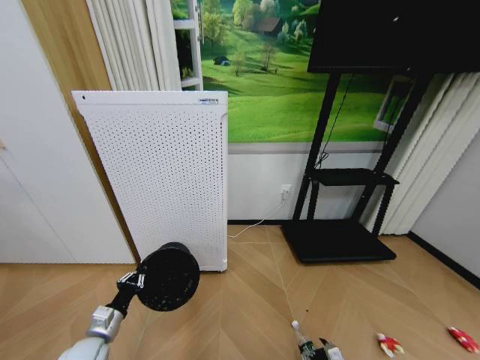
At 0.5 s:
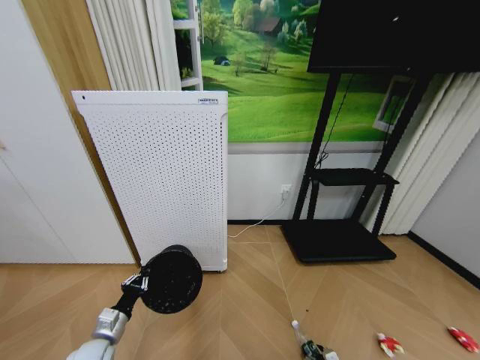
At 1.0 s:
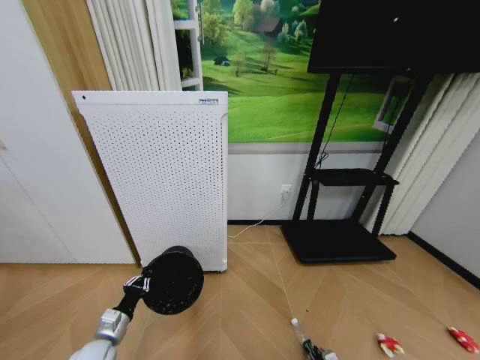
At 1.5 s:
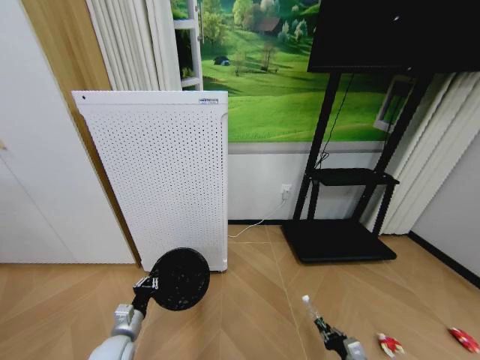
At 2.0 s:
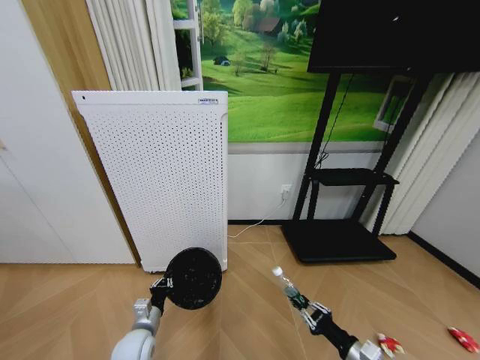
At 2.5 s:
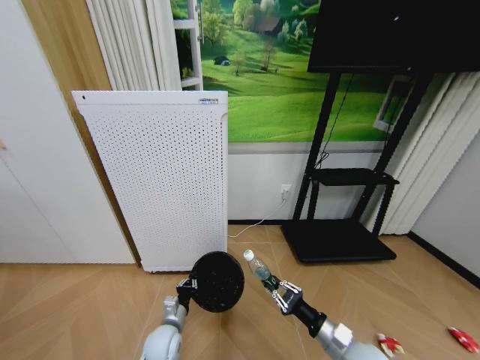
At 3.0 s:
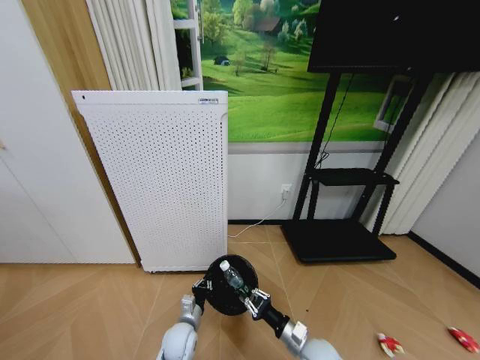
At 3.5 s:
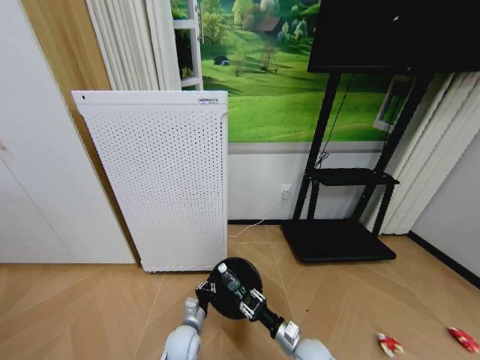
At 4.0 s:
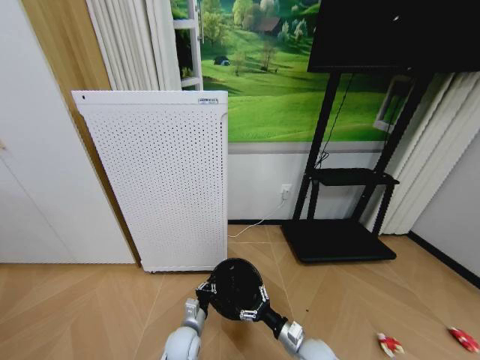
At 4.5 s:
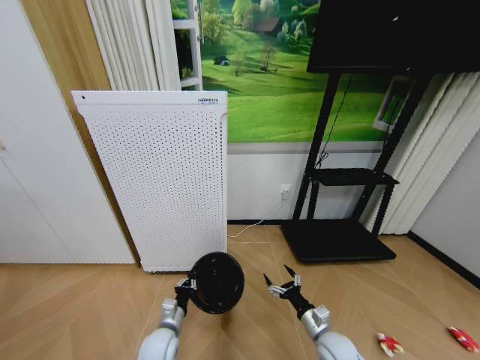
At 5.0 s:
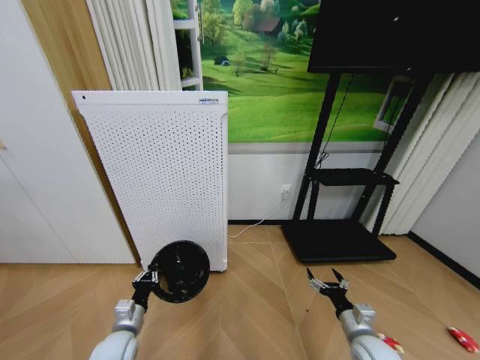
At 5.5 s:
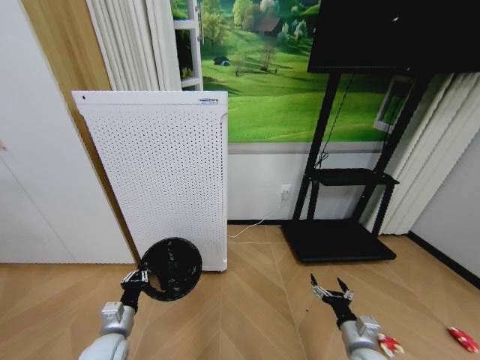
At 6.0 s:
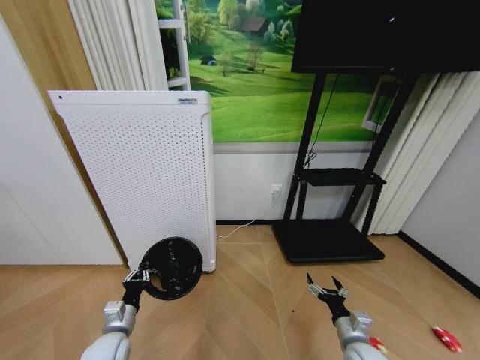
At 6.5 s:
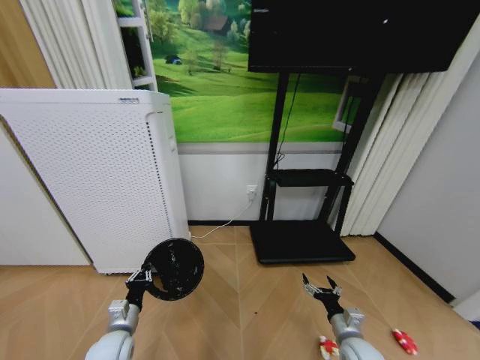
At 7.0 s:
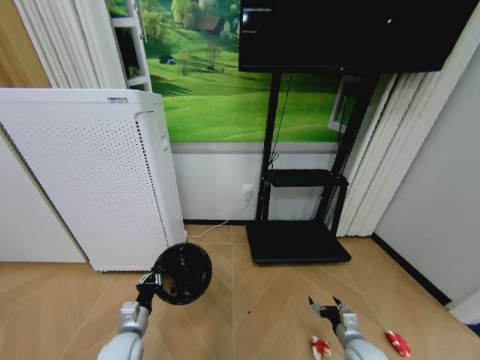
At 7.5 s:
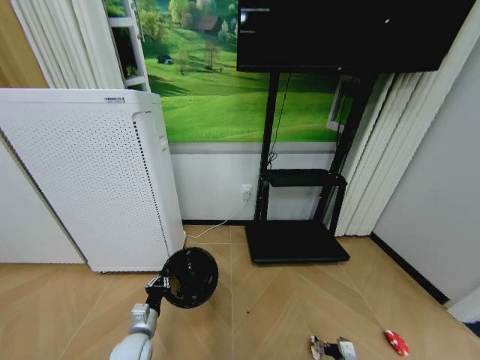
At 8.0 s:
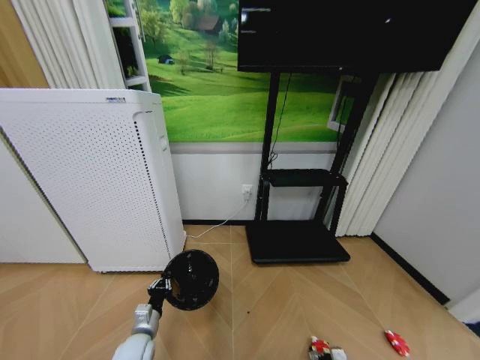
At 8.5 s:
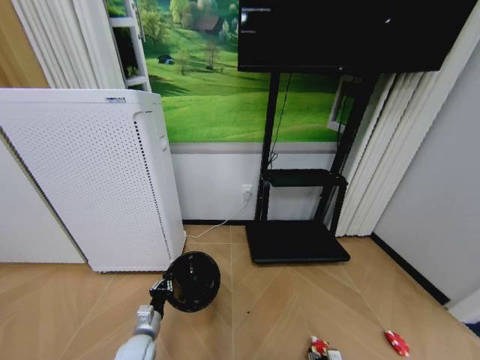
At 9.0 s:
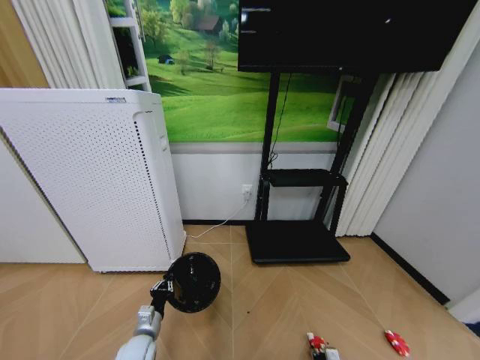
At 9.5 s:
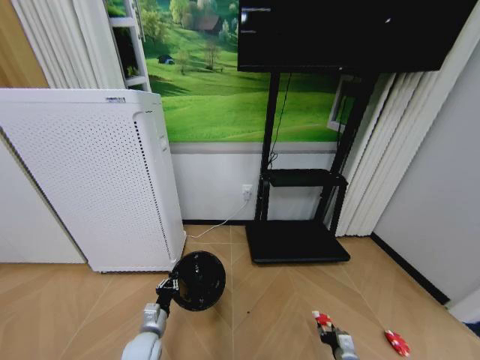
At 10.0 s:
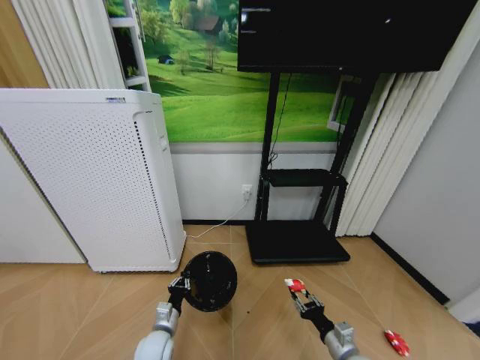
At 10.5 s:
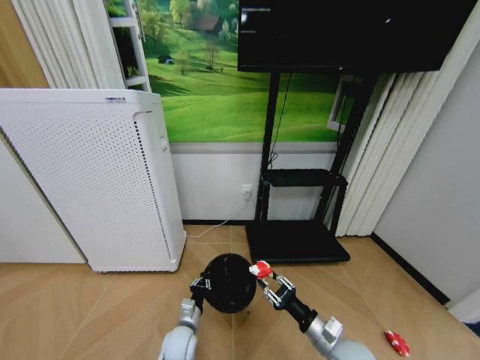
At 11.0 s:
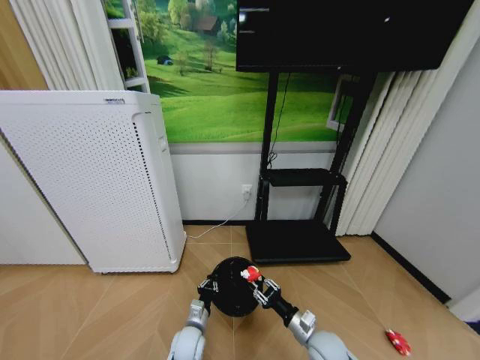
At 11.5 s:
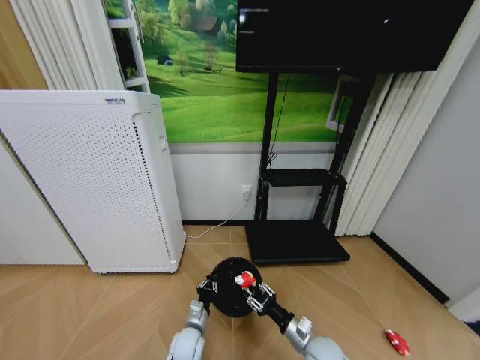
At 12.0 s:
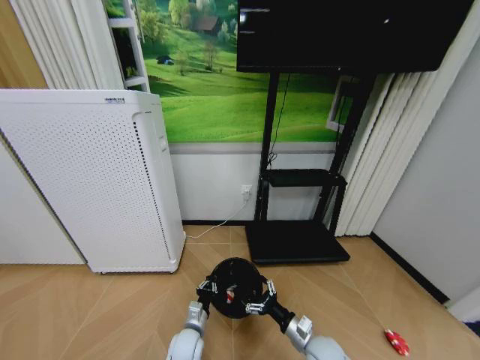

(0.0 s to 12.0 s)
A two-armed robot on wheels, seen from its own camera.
Task of the whole recording: Pick up the trash bin and place the garbage on the floor into it.
0.0 s - 2.0 s: The right gripper goes about 20 cm upward, and closes its fingers. The left gripper travels to the right by roughly 10 cm.
2.0 s - 4.0 s: The left gripper goes about 10 cm to the right. Meanwhile the right gripper travels to the left, downward and forward by roughly 15 cm, and opens up.
4.0 s - 6.0 s: The left gripper shifts some 20 cm to the left and upward. The right gripper moves to the right, roughly 10 cm.
6.0 s - 8.0 s: The left gripper goes about 5 cm downward. The right gripper moves downward, roughly 15 cm.
8.0 s - 10.0 s: The left gripper is displaced to the right by about 5 cm, while the right gripper shifts some 15 cm upward, and closes up.
10.0 s - 12.0 s: The right gripper goes about 10 cm to the left, and opens. Meanwhile the left gripper travels to the right by roughly 10 cm.

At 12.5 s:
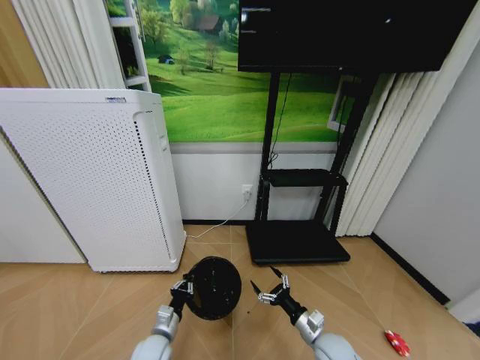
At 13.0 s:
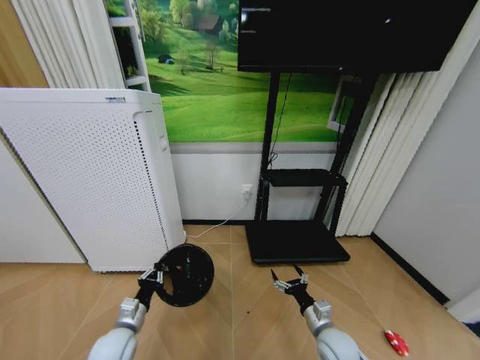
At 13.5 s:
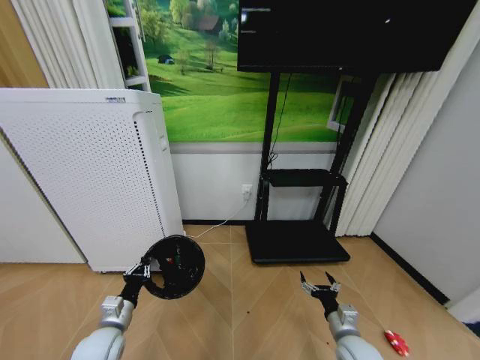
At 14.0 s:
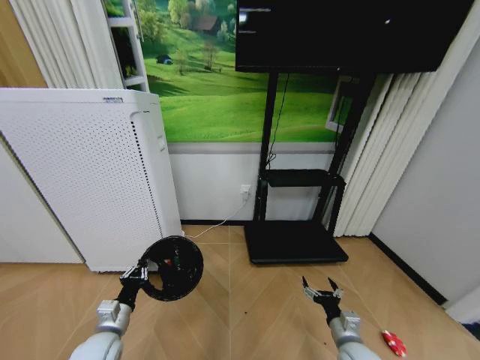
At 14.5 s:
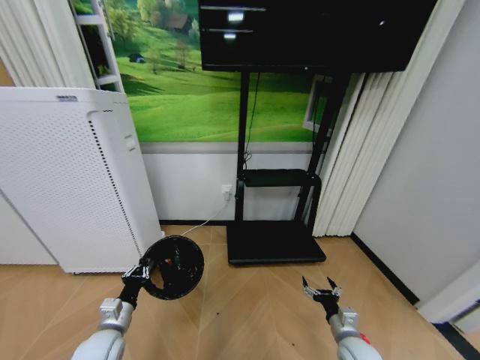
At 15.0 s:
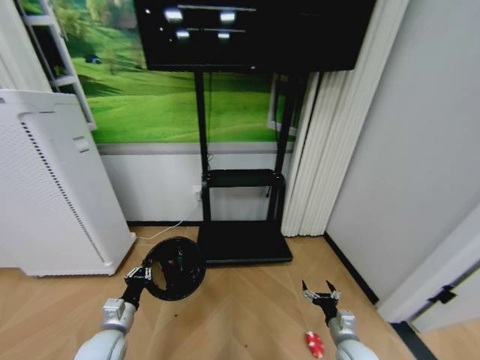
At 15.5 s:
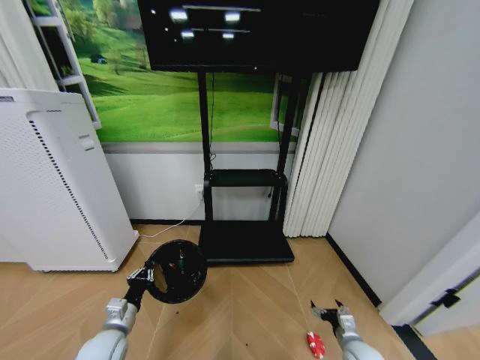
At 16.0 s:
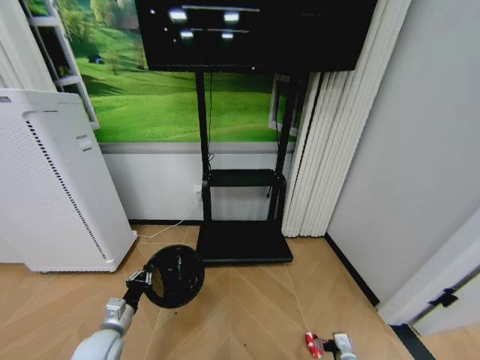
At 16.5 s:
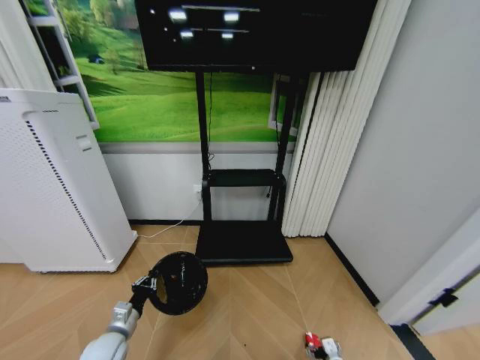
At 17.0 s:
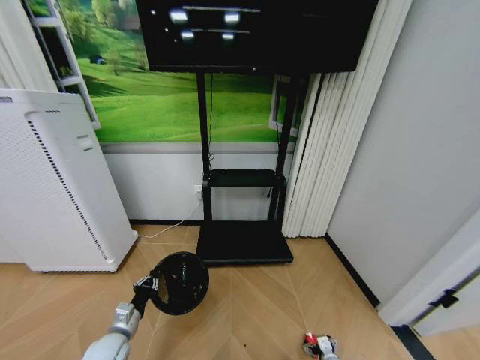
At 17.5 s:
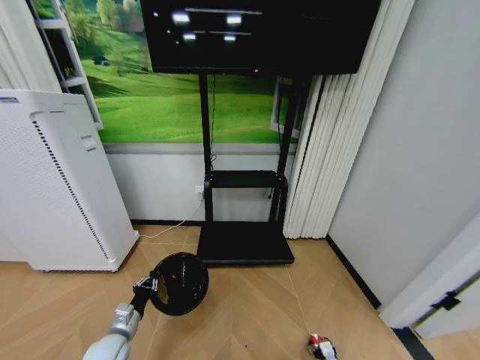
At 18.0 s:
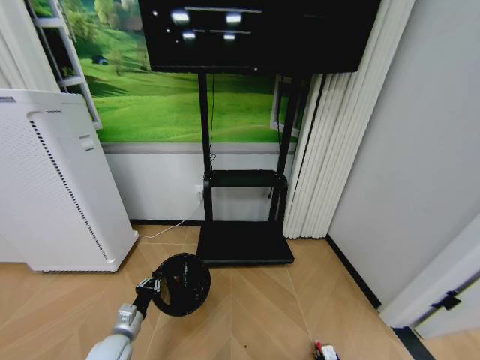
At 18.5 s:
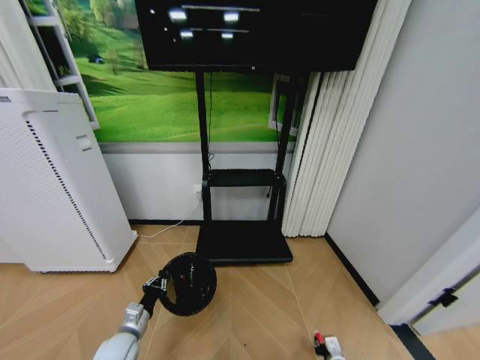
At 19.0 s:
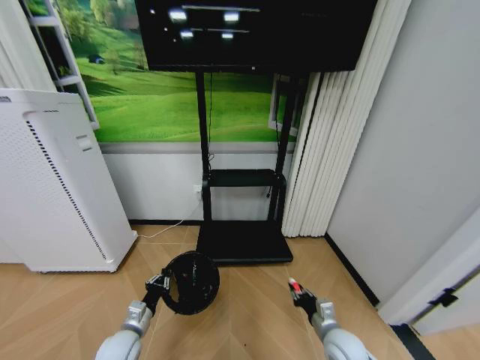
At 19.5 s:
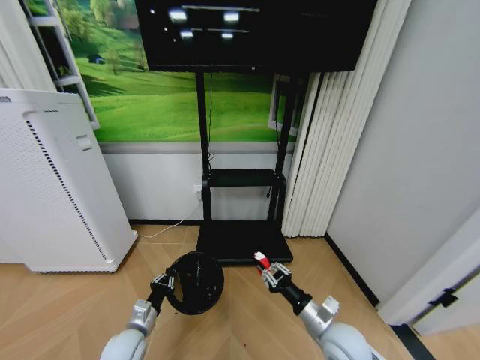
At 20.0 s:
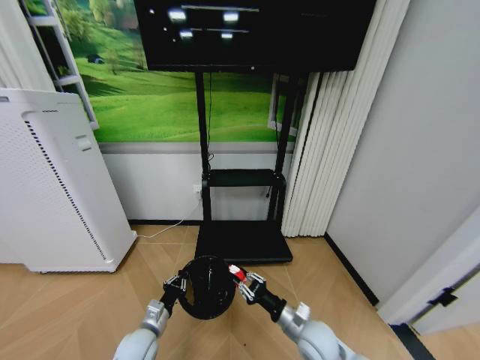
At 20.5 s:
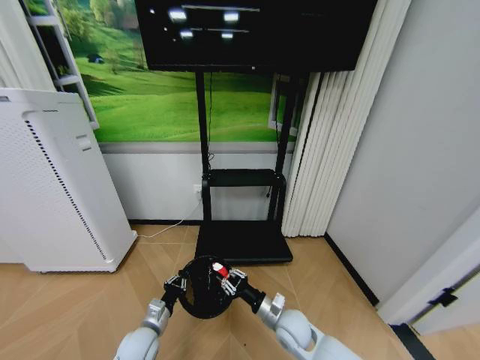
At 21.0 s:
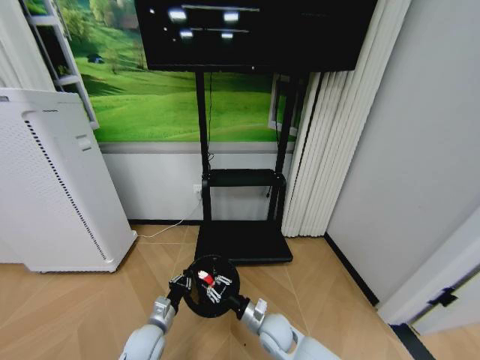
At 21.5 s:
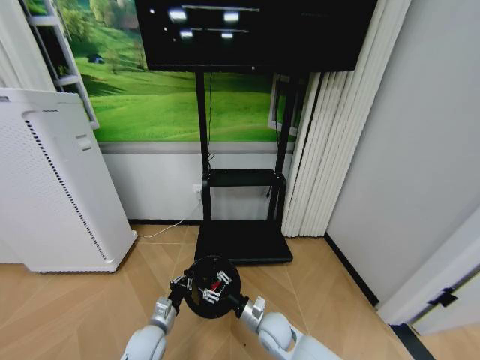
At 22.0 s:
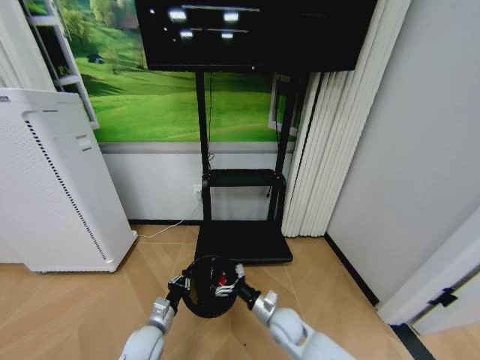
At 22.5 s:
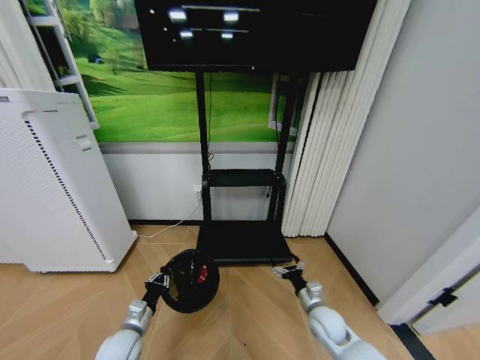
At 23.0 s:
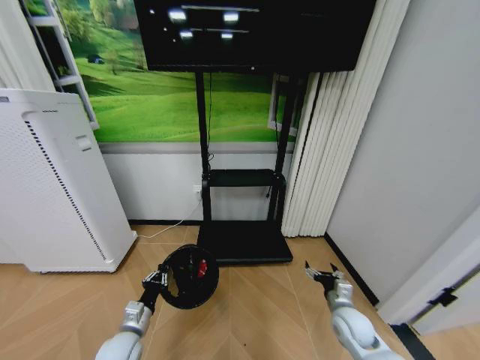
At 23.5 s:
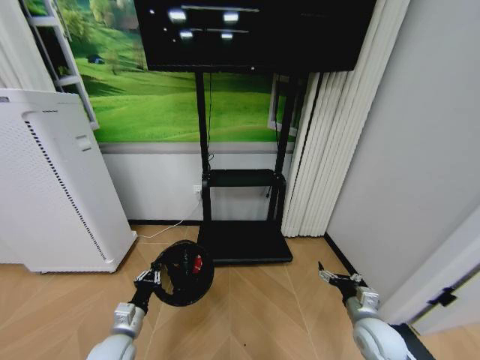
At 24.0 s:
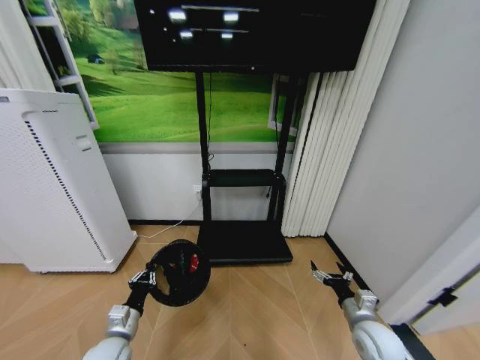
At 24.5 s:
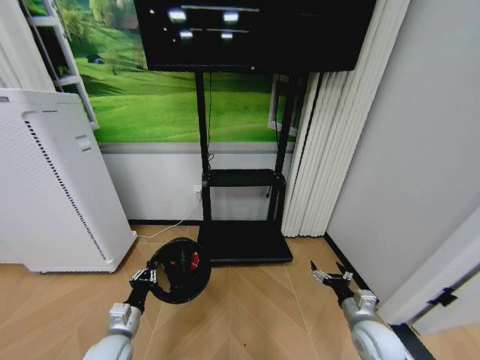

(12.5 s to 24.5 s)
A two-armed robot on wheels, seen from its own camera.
Task of the whole recording: Pick up the trash bin and place the garbage on the floor into it.
12.5 s - 14.5 s: The left gripper moves to the left and upward, approximately 15 cm. Meanwhile the right gripper heads to the right, covering about 5 cm.
14.5 s - 16.5 s: The right gripper shifts some 15 cm downward.
16.5 s - 18.5 s: The right gripper closes.
18.5 s - 20.5 s: The right gripper is displaced to the left, upward and forward by roughly 25 cm. Meanwhile the left gripper heads to the right, covering about 5 cm.
20.5 s - 22.5 s: The right gripper travels to the right by roughly 10 cm, and opens its fingers.
22.5 s - 24.5 s: The right gripper heads to the right, backward and upward, covering some 10 cm.

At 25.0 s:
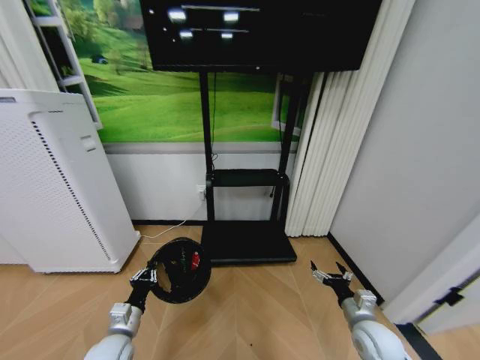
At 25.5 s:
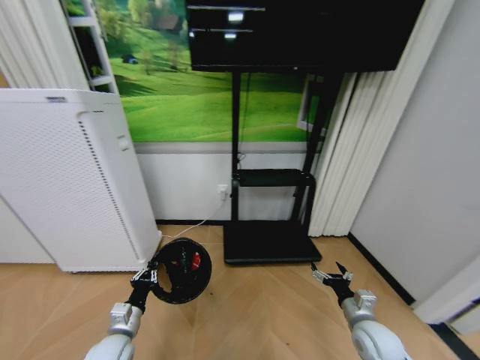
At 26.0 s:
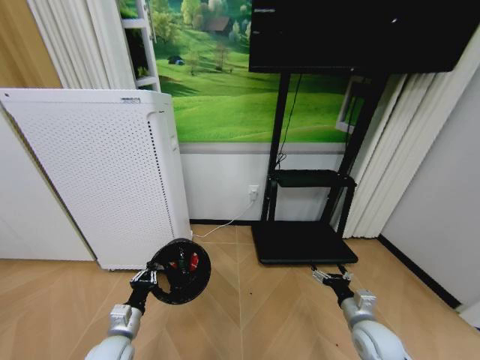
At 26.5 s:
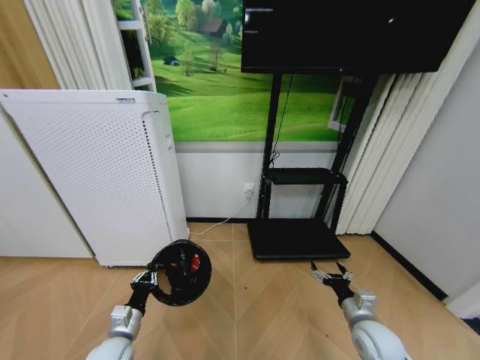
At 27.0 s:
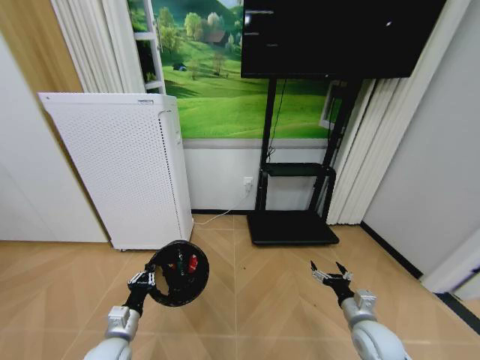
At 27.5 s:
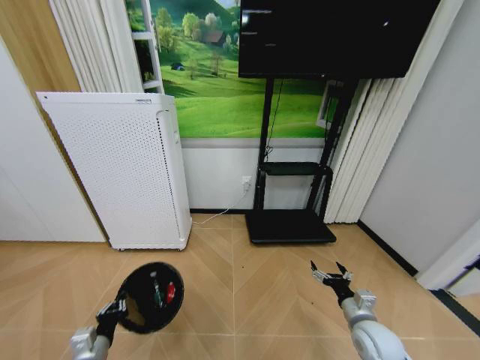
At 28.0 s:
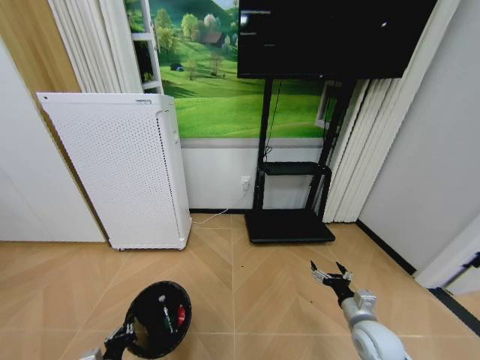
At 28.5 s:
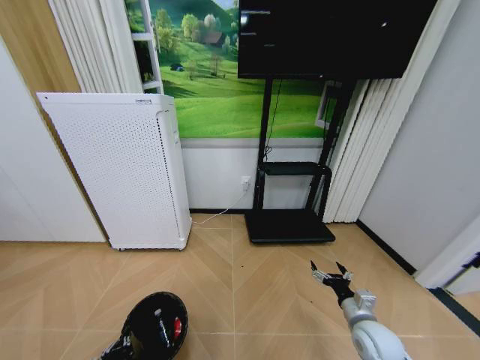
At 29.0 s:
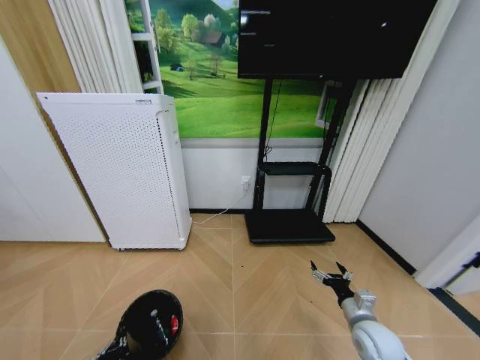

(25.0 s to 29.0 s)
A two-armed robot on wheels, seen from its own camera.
Task of the whole recording: Pick up the trash bin and place the garbage on the floor into it.
27.0 s - 29.0 s: The left gripper shifts roughly 10 cm backward and downward.